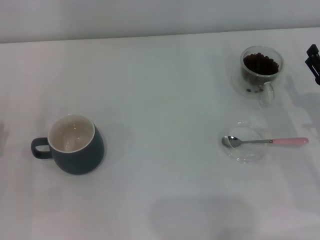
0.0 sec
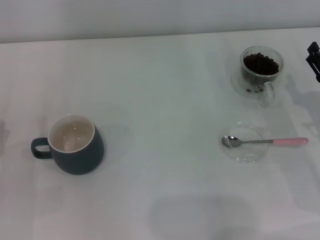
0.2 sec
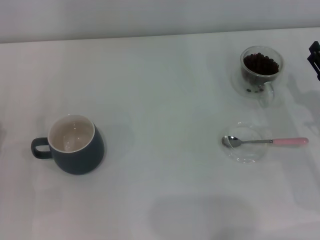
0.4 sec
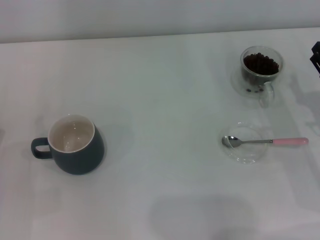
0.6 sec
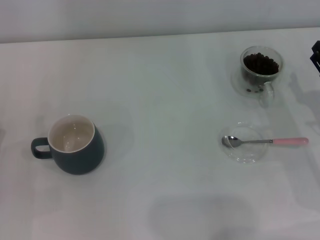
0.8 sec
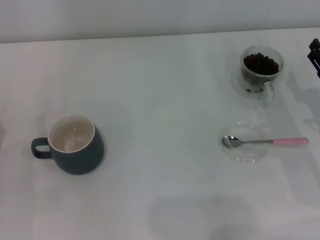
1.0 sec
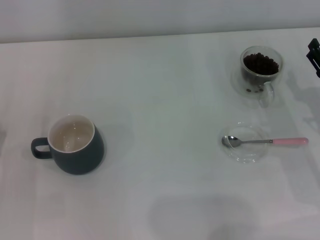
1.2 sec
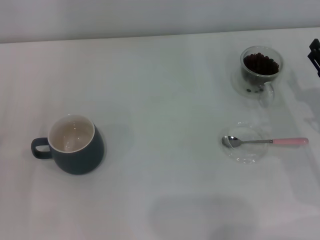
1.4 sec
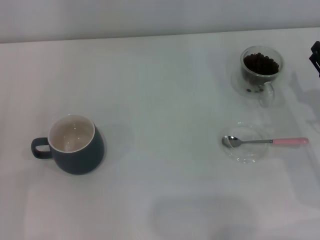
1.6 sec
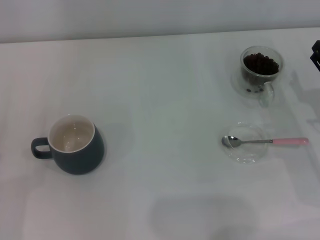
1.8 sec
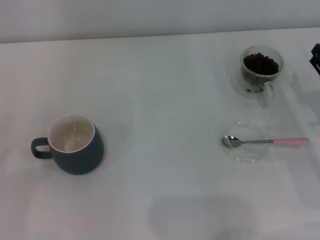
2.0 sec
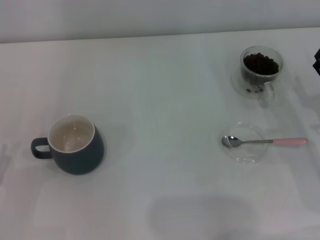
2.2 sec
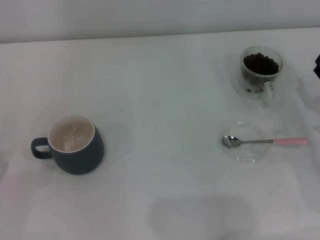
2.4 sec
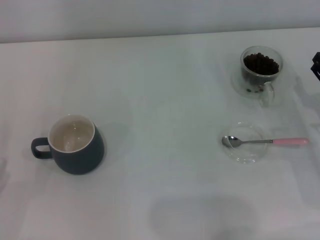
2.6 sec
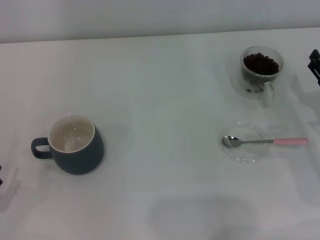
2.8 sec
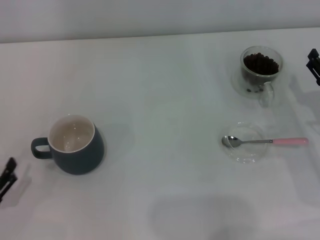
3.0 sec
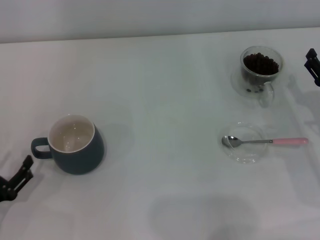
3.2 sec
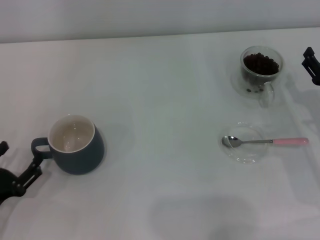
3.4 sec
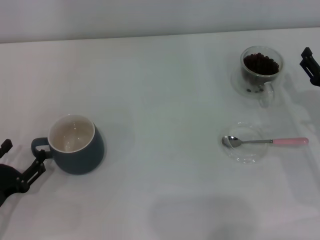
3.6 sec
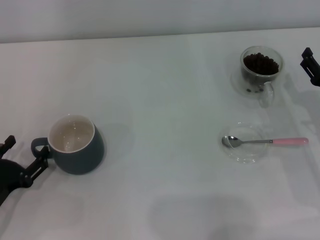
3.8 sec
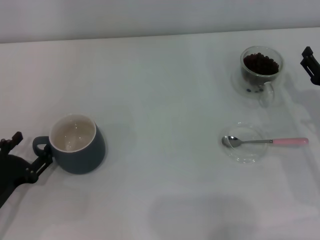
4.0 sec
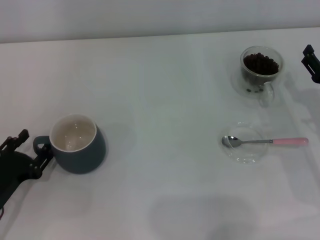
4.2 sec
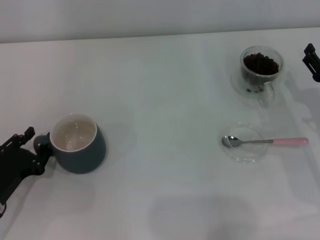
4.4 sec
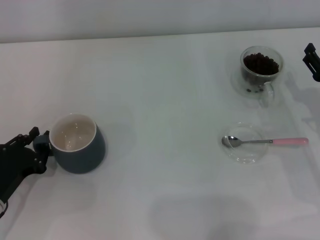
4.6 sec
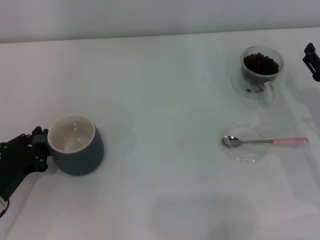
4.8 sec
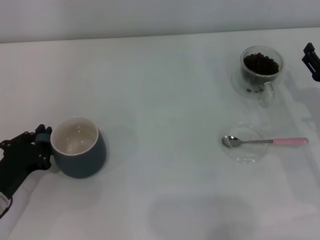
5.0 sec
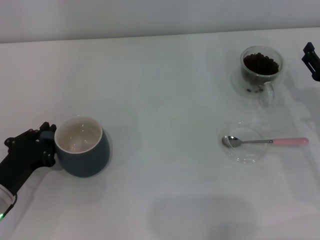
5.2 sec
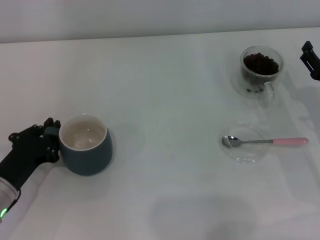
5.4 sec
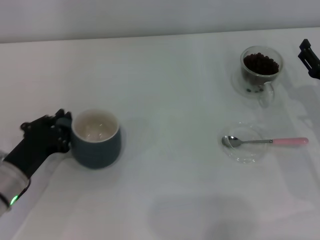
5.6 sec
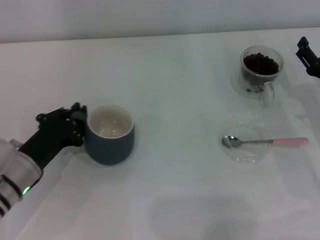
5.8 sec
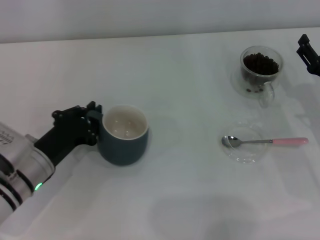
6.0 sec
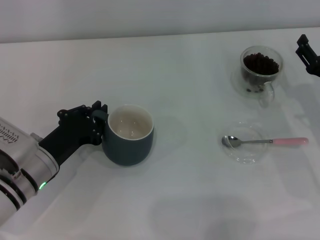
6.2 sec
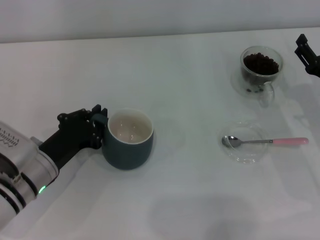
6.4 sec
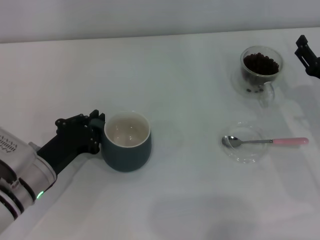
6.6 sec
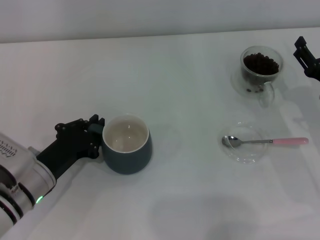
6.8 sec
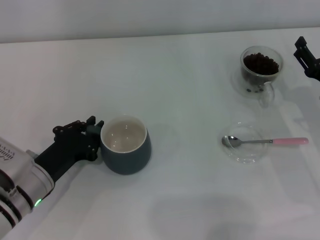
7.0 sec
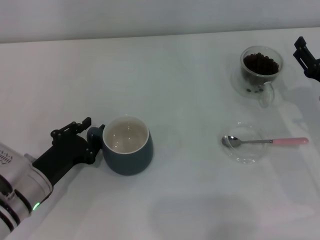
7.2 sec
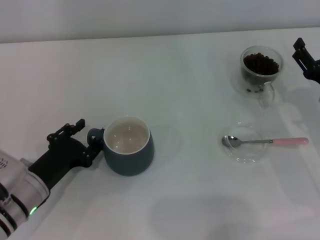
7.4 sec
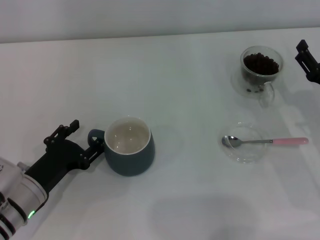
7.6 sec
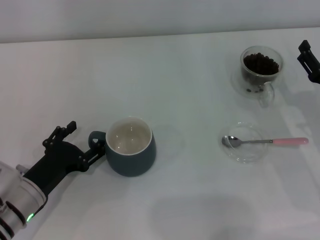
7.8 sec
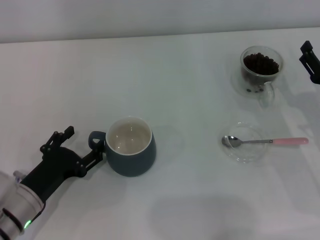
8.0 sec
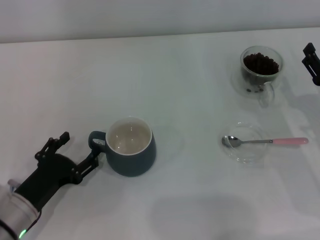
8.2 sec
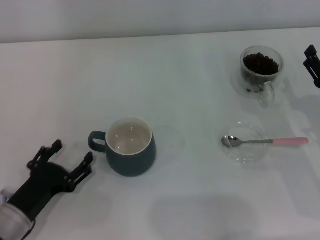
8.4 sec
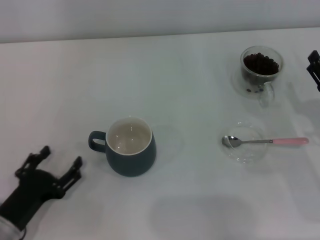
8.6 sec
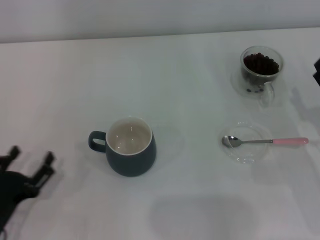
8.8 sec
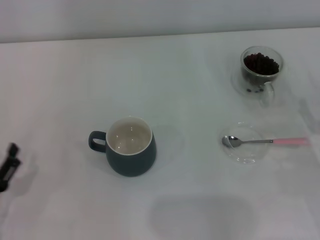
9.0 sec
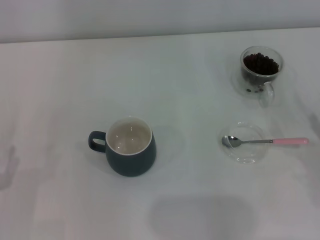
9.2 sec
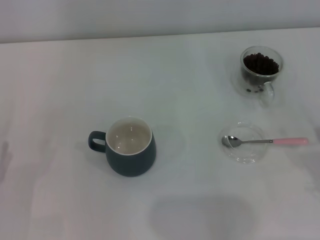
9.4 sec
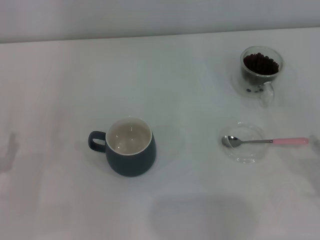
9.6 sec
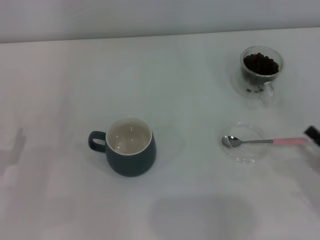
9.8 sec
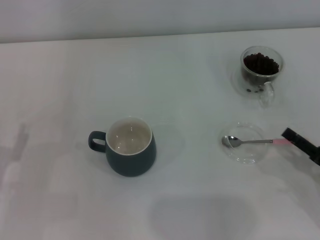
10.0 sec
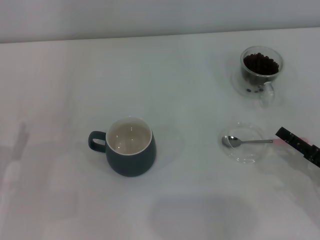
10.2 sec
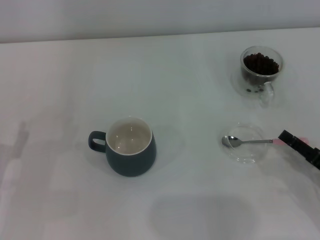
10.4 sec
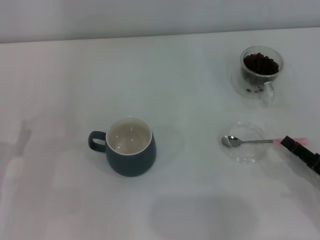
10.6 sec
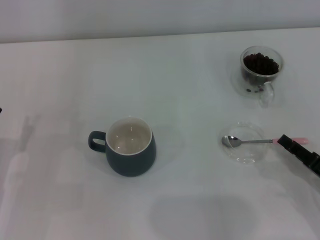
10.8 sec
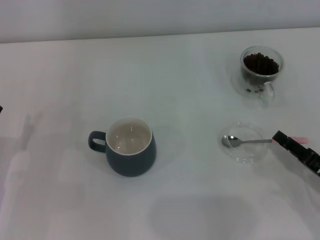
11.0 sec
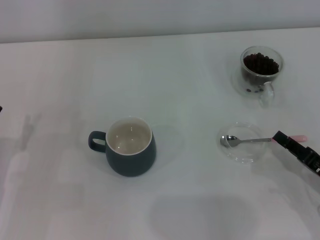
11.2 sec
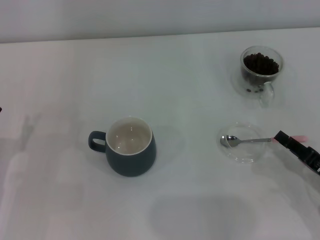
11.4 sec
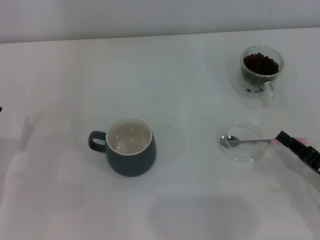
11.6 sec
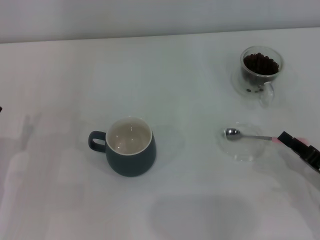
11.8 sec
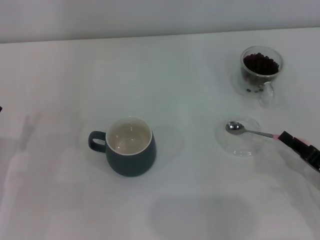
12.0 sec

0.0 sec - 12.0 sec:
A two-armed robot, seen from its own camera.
Task of the whole recording: Use a pink spoon to take out the coffee beans from the glass and pour them into the gray cup.
Step, 0.0 sec - 8.2 sec: Move the cup to the center of view with the left gripper.
3.0 sec - 4.4 sec: The left gripper travels forward by some 5 cm, and closes up.
4.4 sec - 6.0 sec: The left gripper shifts about 10 cm to the right and forward, and closes its fingers.
6.0 sec - 7.6 sec: The left gripper opens its fingers.
7.6 sec - 9.0 sec: The left gripper travels backward and to the left by approximately 10 cm, and opens its fingers, while the right gripper moves backward, about 5 cm.
9.0 sec - 10.4 sec: The left gripper goes about 5 cm forward.
10.4 sec - 12.0 sec: The right gripper closes its fingers.

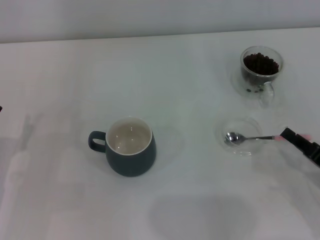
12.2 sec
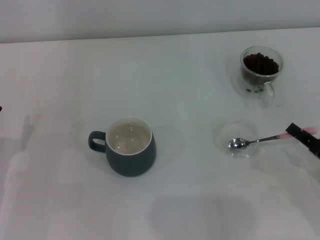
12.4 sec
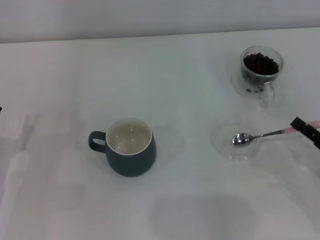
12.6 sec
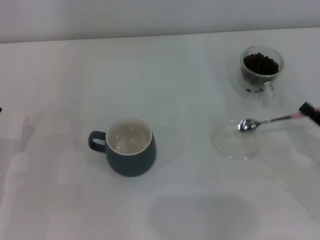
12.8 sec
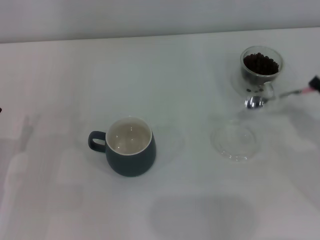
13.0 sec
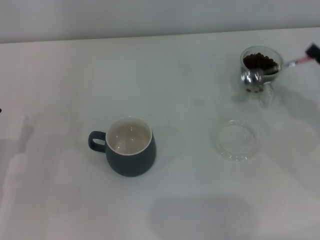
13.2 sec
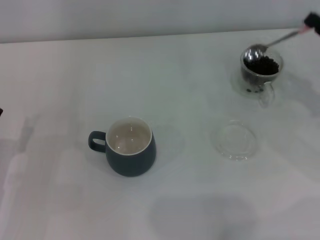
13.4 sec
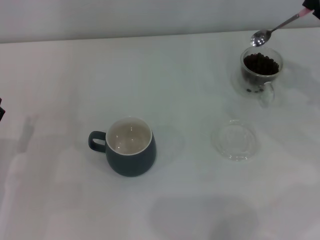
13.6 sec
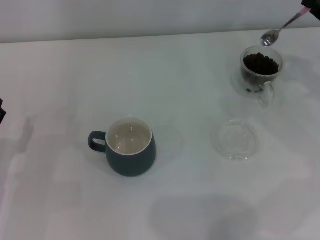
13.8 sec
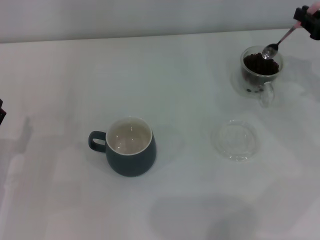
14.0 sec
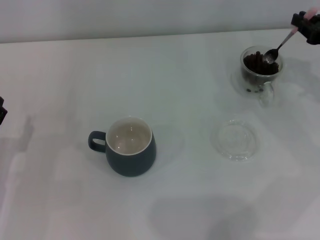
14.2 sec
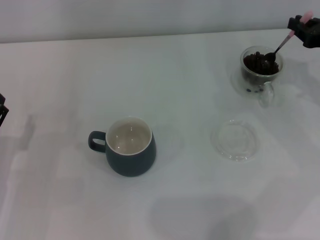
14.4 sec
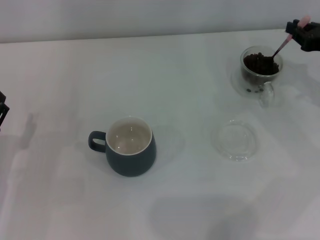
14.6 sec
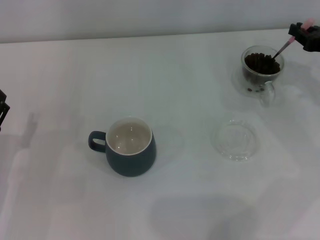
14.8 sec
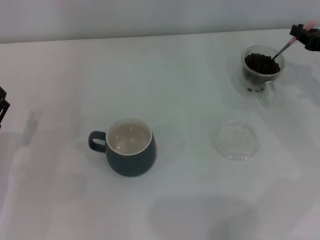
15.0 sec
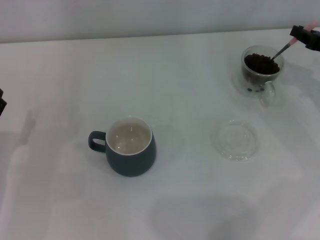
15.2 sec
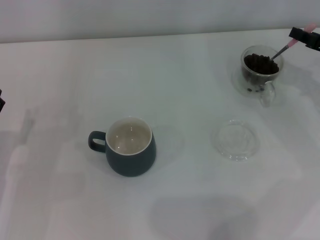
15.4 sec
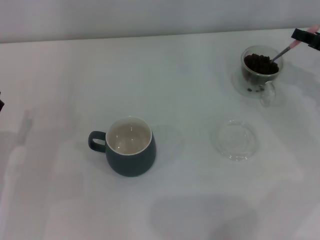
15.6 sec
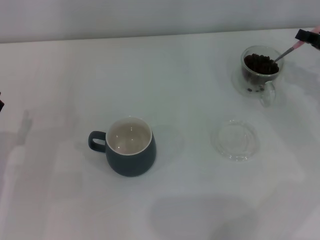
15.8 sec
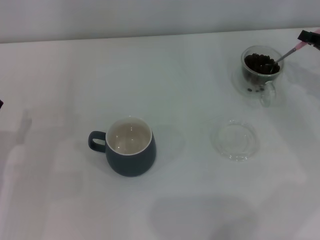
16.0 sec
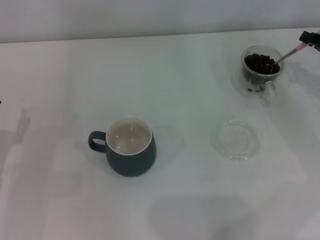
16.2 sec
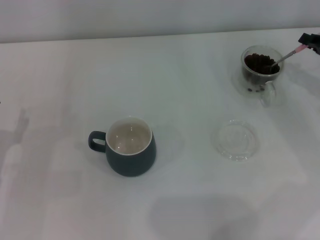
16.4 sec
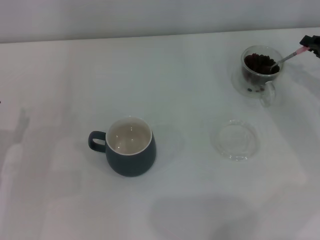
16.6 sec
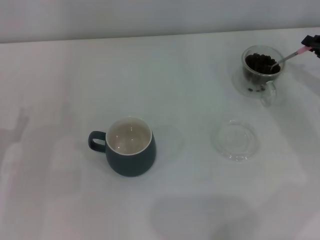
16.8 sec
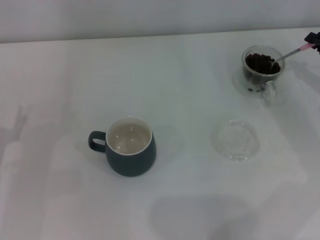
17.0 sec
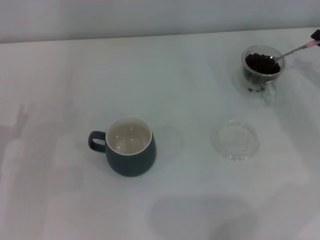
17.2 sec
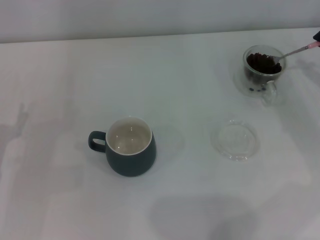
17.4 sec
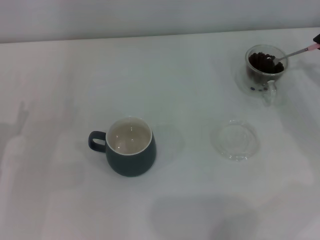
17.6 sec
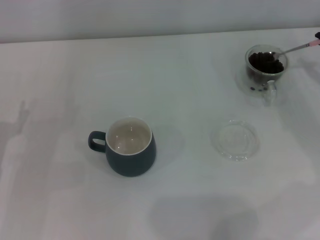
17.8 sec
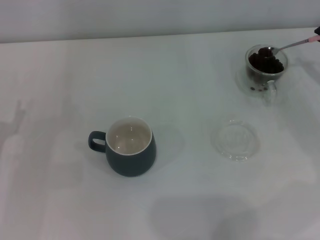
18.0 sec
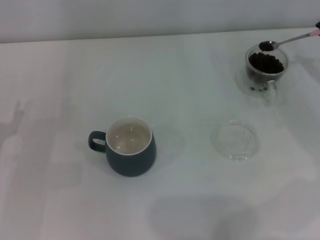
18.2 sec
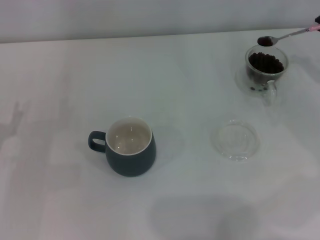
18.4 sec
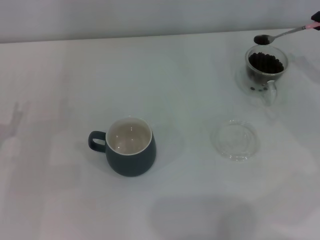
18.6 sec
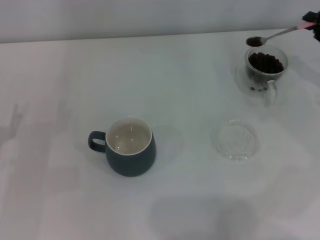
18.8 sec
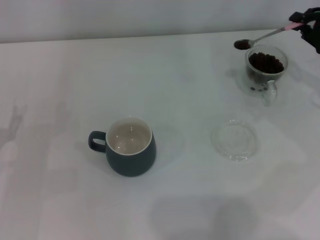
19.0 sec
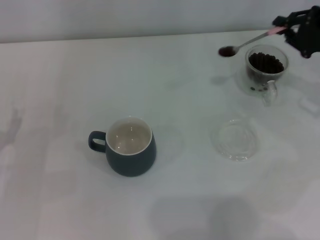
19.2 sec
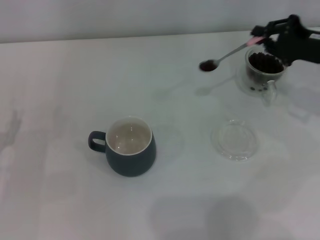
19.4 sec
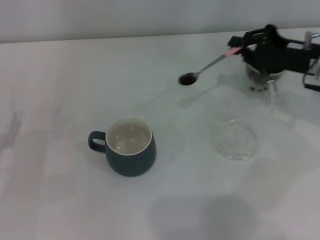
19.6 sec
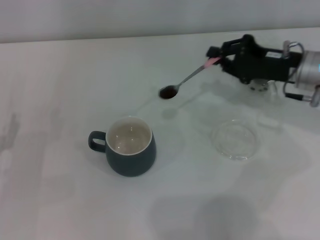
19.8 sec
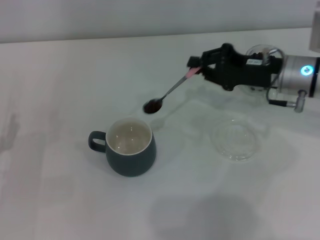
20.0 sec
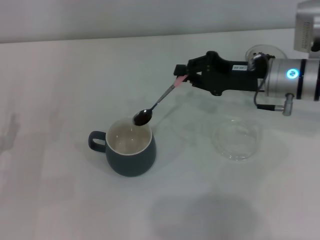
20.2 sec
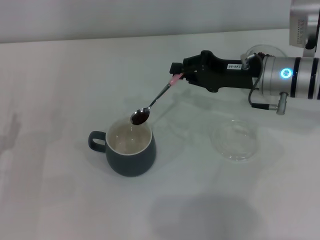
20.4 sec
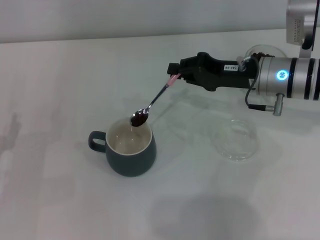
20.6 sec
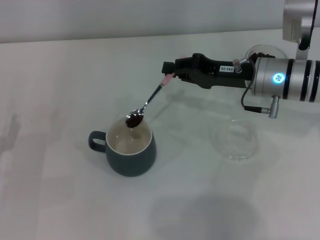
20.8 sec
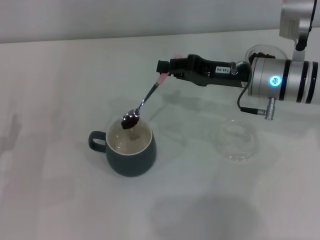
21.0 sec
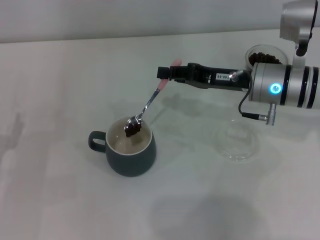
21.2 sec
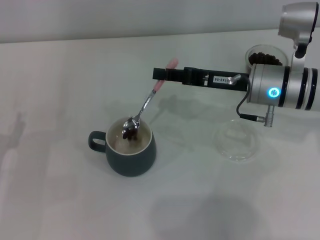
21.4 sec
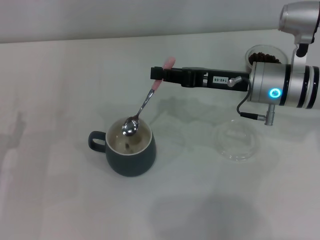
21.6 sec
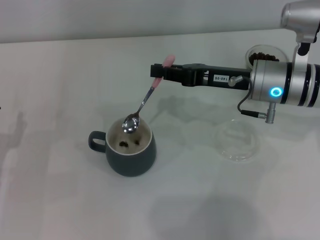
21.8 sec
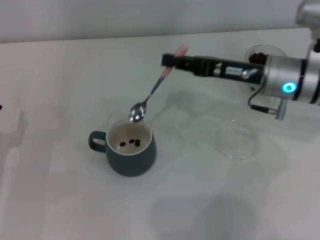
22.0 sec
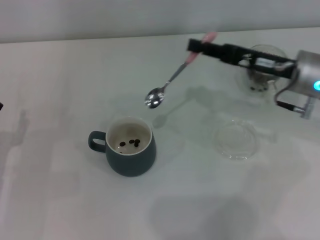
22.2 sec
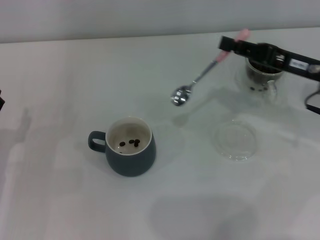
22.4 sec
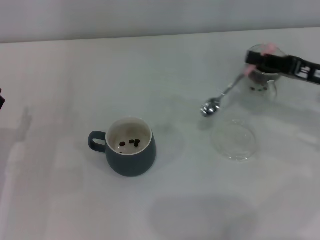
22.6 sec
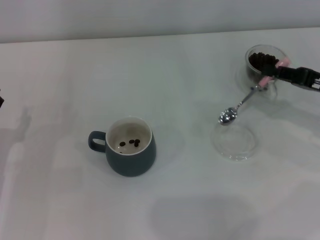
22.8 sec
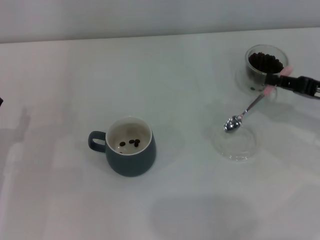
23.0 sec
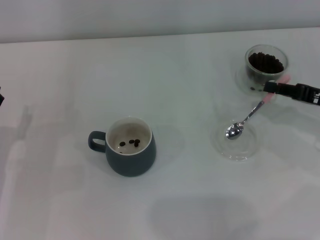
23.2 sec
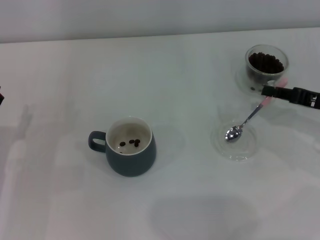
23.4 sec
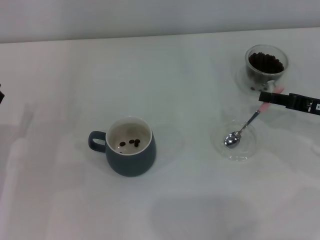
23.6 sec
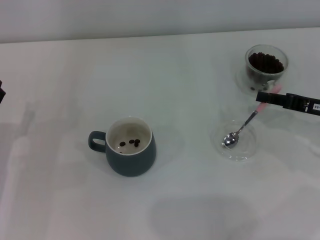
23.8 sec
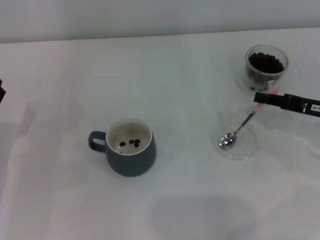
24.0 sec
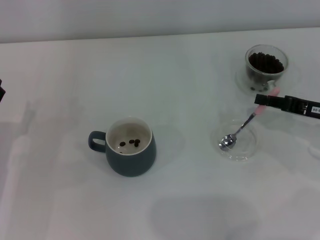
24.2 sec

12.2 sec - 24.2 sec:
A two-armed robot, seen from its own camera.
Task of the whole recording: Use a pink spoon to take out the coffee beans from the glass and pour them into the gray cup.
Step, 13.0 sec - 21.8 sec: Scoop a spoonful of beans into the cup with the right gripper.
12.2 sec - 13.8 sec: The right gripper heads forward and upward, covering about 20 cm.
13.8 sec - 15.2 sec: There are only small adjustments of the grippers.
18.2 sec - 19.8 sec: The right gripper travels to the left by some 15 cm.
19.8 sec - 21.2 sec: The right gripper is displaced to the left by roughly 5 cm.
21.2 sec - 22.6 sec: The right gripper is displaced to the right by roughly 15 cm.
22.6 sec - 24.2 sec: The right gripper changes place by approximately 5 cm.
